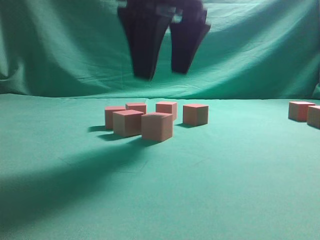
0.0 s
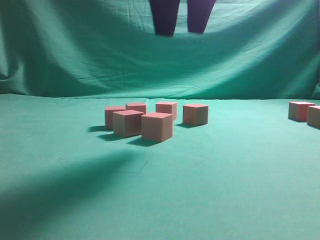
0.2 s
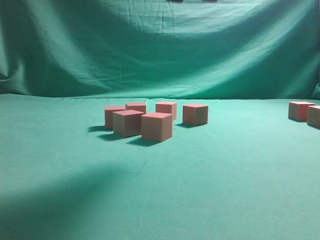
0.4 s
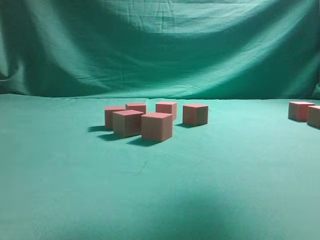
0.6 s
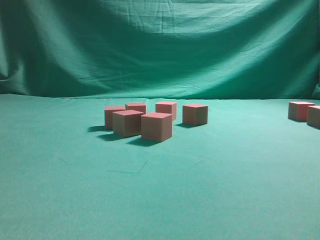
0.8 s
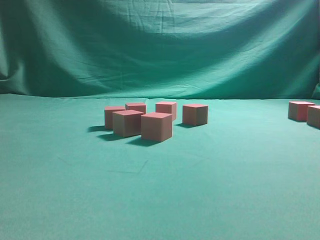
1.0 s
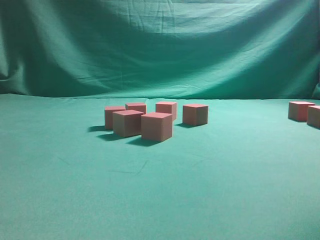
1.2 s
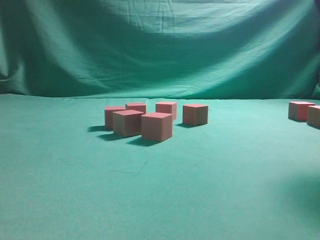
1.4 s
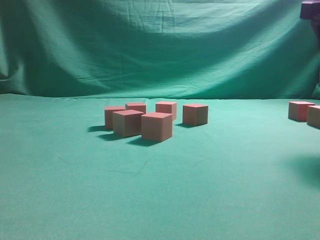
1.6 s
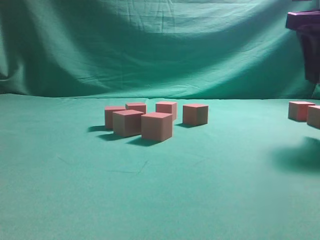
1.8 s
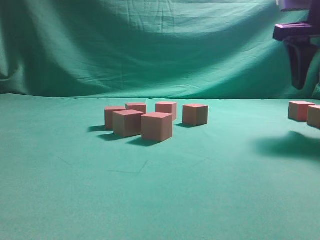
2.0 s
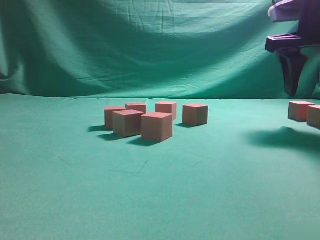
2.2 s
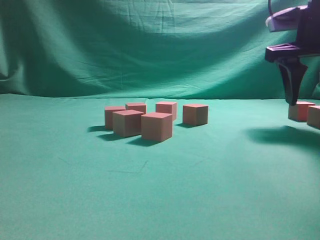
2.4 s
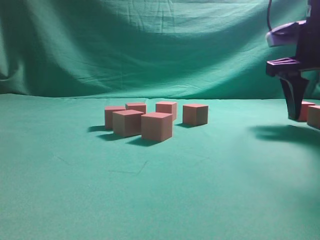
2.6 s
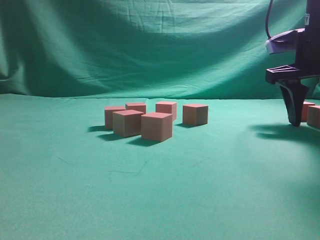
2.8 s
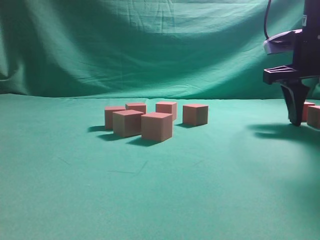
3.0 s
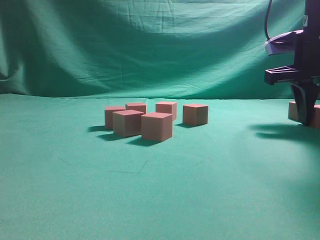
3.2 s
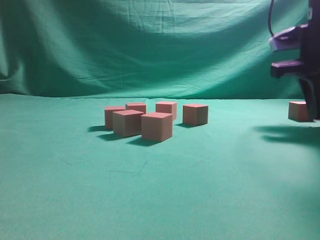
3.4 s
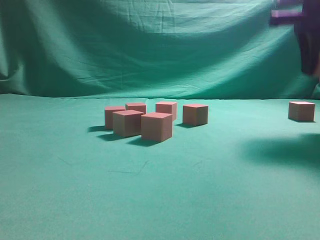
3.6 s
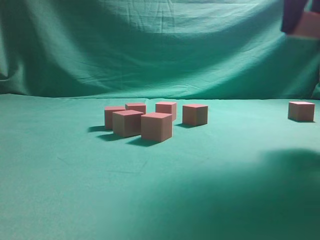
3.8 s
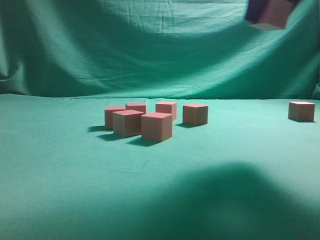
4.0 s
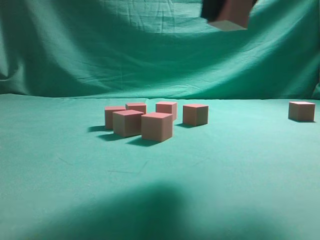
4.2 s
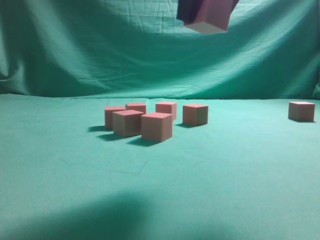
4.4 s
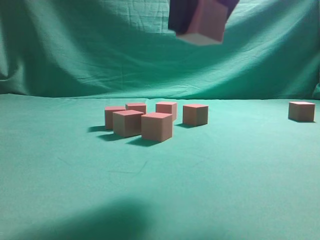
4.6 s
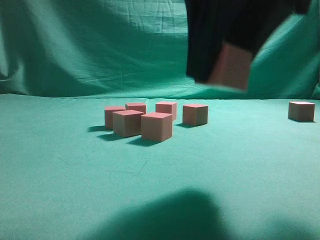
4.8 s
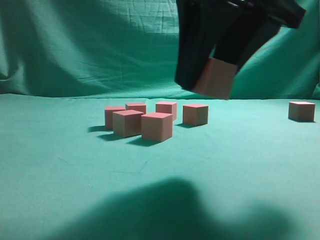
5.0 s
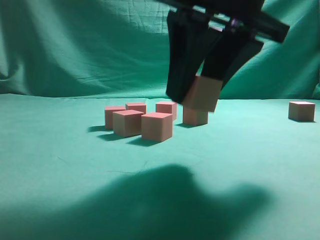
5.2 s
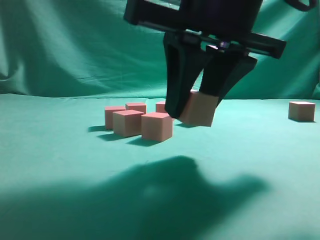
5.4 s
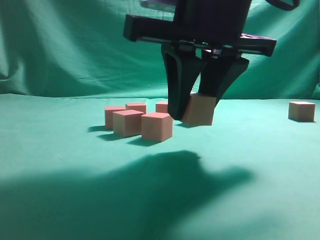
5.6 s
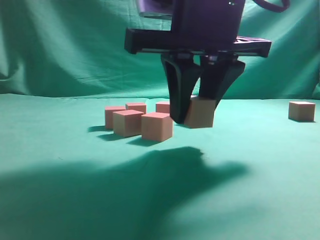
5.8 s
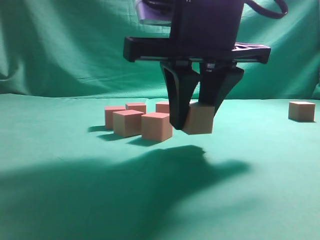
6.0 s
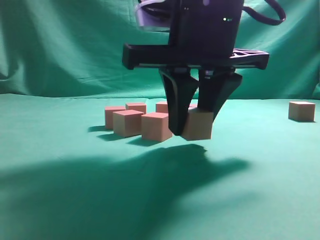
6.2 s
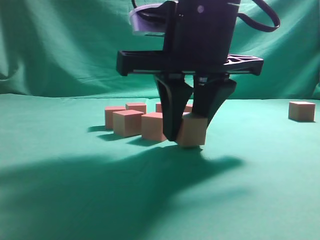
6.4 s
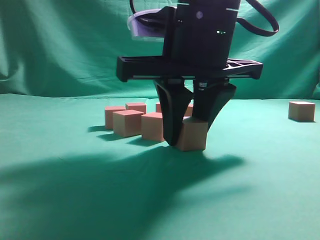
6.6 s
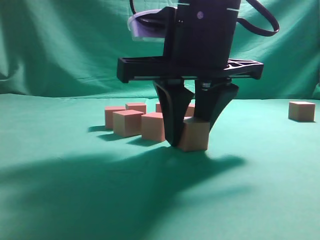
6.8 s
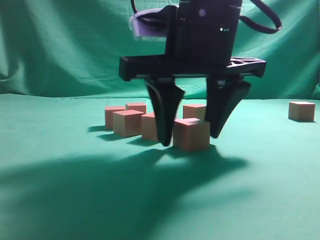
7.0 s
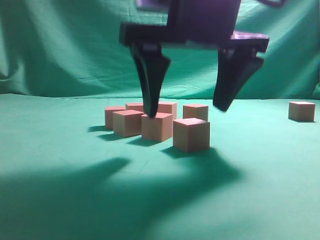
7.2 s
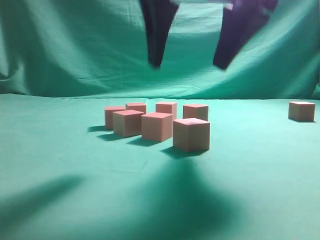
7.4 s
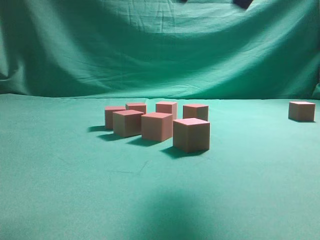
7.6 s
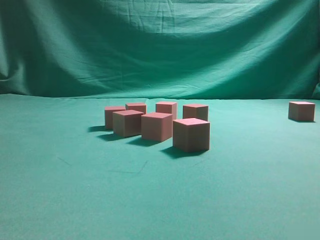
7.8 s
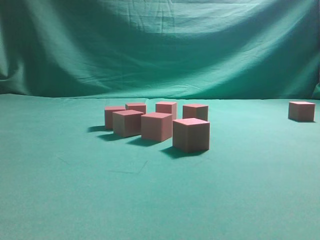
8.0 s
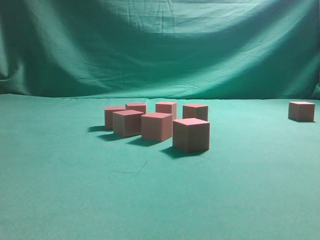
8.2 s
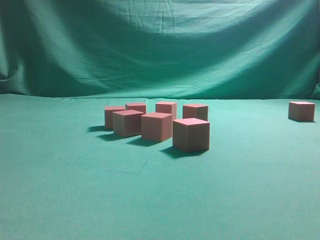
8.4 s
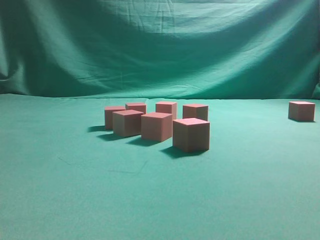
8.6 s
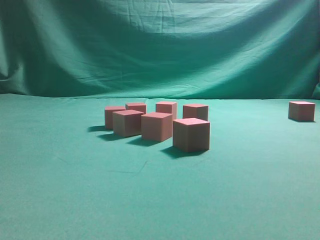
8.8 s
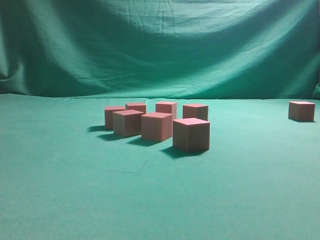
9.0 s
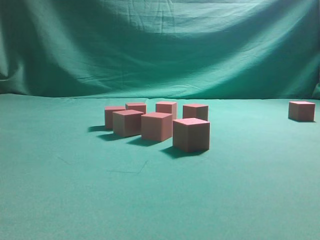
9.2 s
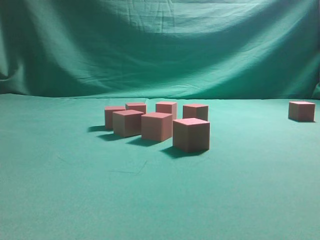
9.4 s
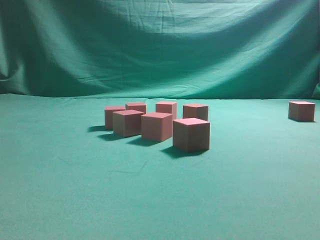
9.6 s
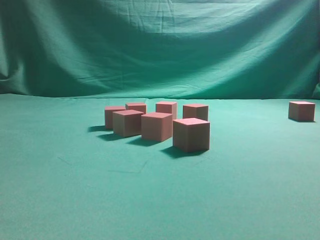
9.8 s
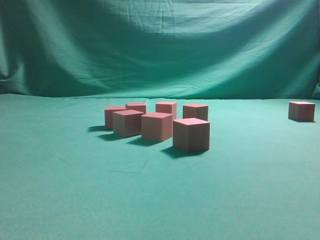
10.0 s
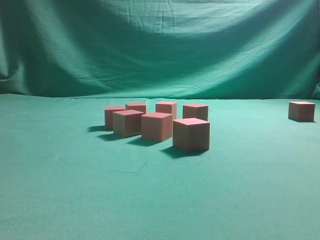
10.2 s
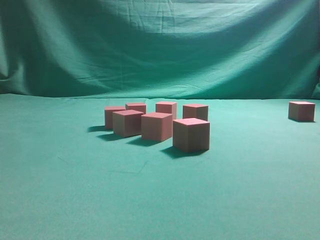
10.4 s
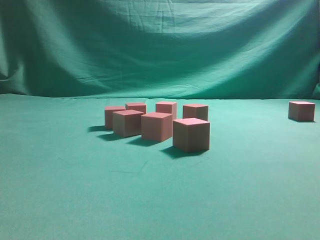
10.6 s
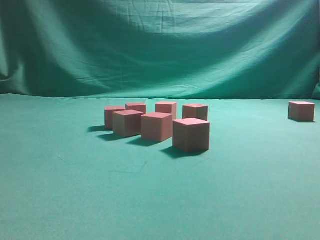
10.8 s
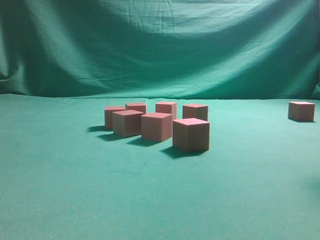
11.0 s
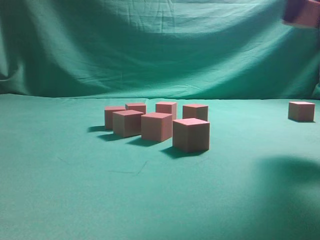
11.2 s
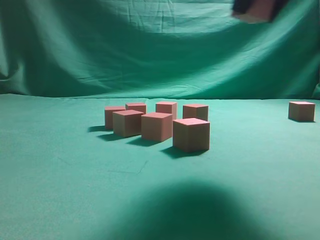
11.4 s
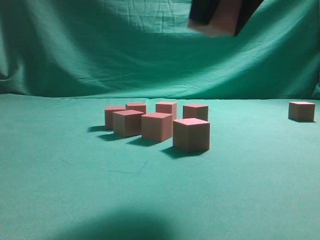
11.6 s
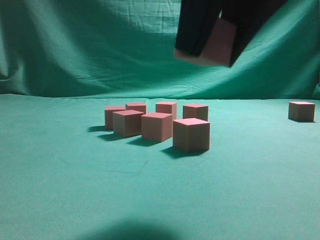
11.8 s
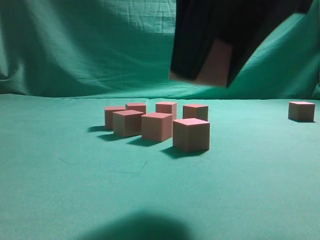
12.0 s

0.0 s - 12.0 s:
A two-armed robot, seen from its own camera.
Task of the whole recording: pick up the multiple cubes in two columns one by one and place them in another position on the table.
Step, 0.4 s - 3.4 s: Pick up the block on the table.
Step, 3.6 s - 7.2 s: Place the block at the correct position to assemble the letter S.
Step, 7.6 s - 10.6 s: Pick up the block on the table.
0.0 s - 1.6 s: The right gripper moves to the right, roughly 20 cm.
1.6 s - 3.0 s: The right gripper shifts roughly 10 cm downward and forward.
3.0 s - 4.4 s: The right gripper moves to the left, backward and upward, some 25 cm, and closes its fingers.
4.4 s - 6.0 s: The right gripper moves downward, approximately 10 cm.
6.0 s - 7.6 s: The right gripper goes about 10 cm upward, and opens its fingers.
7.6 s - 9.0 s: The right gripper moves to the right, forward and downward, roughly 25 cm.
10.4 s - 12.0 s: The right gripper is displaced to the left and backward by about 30 cm.

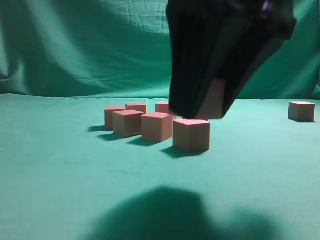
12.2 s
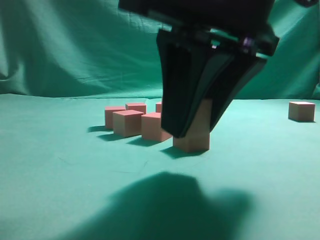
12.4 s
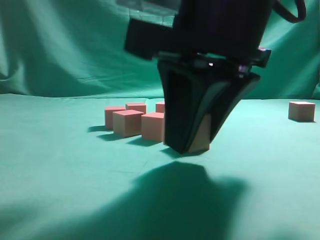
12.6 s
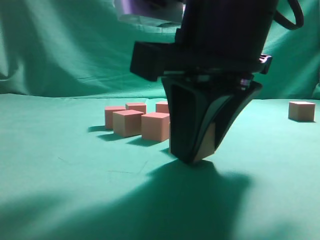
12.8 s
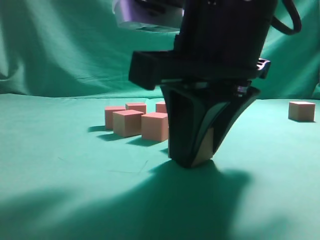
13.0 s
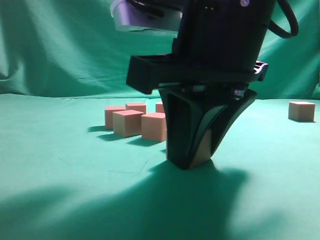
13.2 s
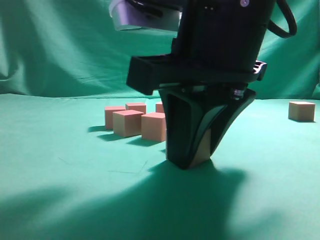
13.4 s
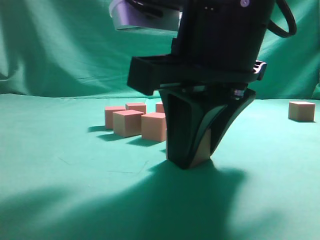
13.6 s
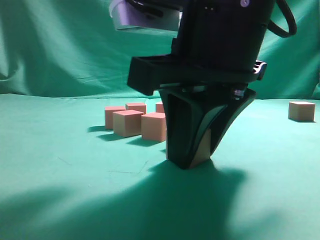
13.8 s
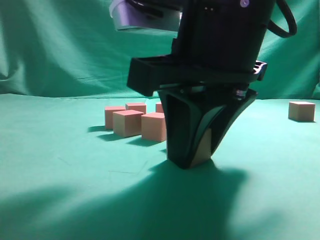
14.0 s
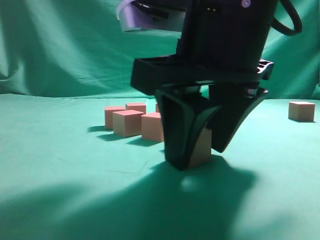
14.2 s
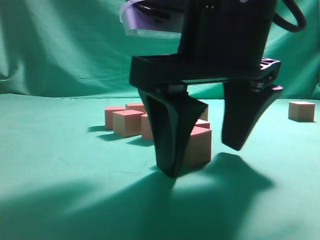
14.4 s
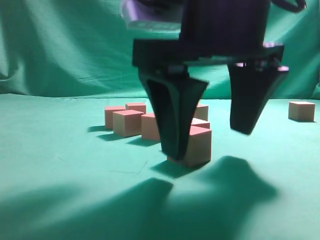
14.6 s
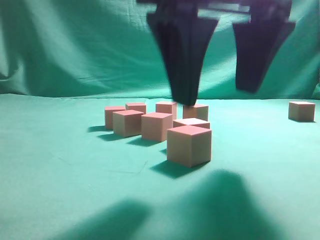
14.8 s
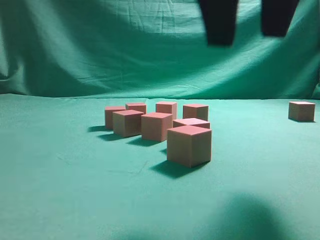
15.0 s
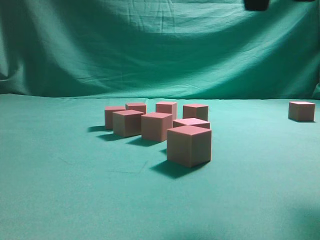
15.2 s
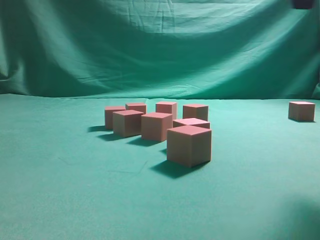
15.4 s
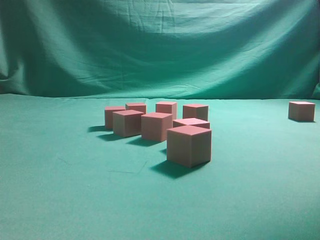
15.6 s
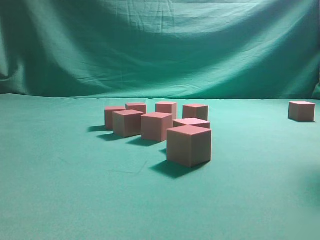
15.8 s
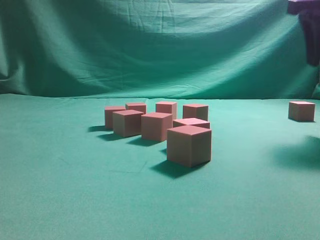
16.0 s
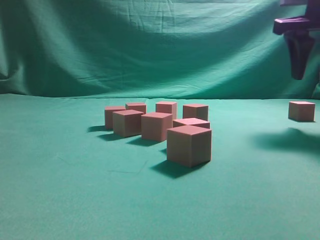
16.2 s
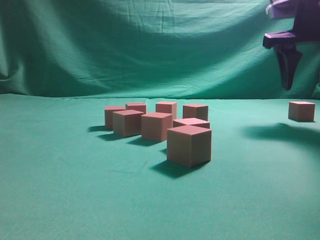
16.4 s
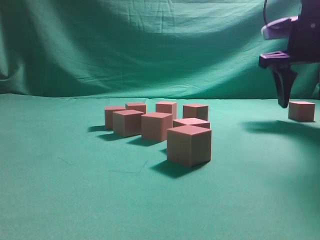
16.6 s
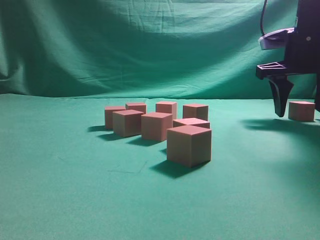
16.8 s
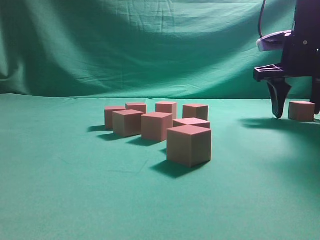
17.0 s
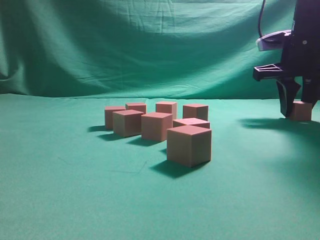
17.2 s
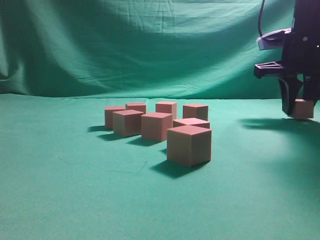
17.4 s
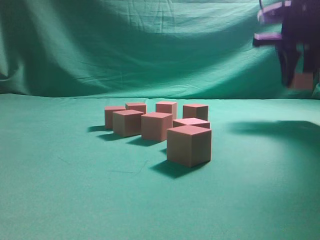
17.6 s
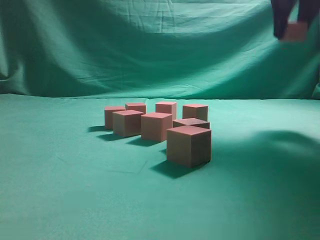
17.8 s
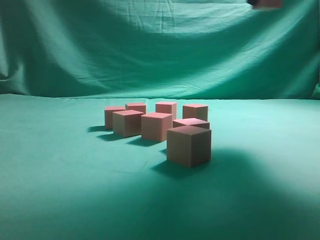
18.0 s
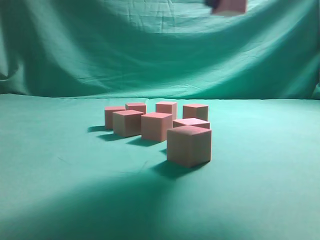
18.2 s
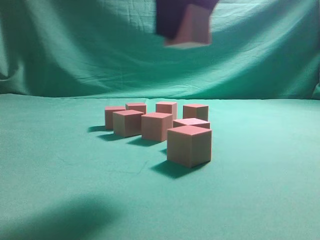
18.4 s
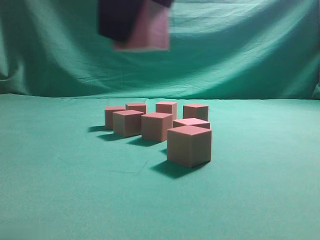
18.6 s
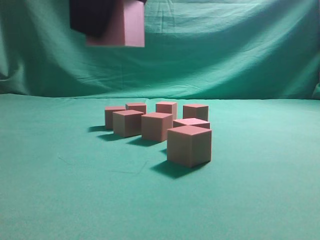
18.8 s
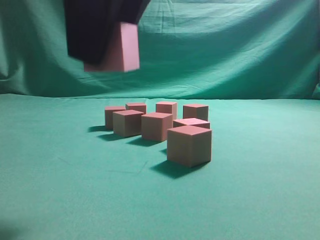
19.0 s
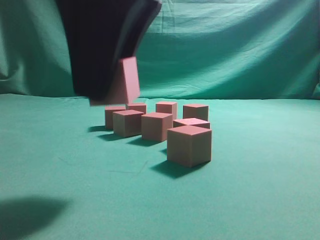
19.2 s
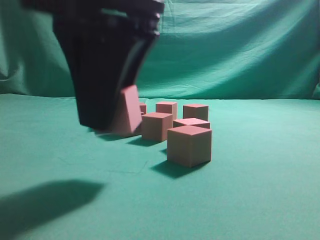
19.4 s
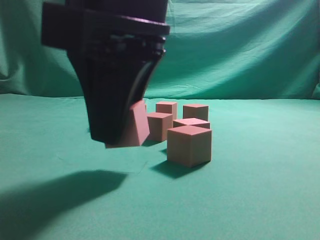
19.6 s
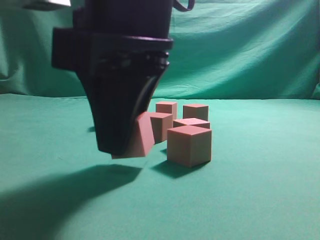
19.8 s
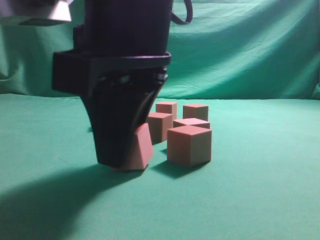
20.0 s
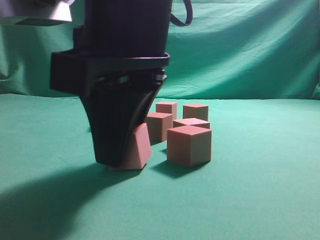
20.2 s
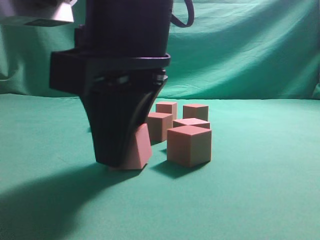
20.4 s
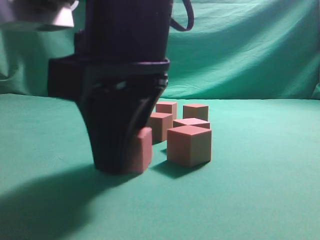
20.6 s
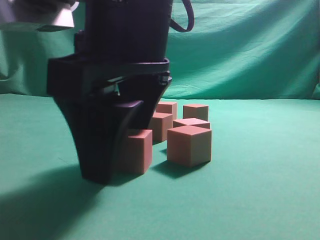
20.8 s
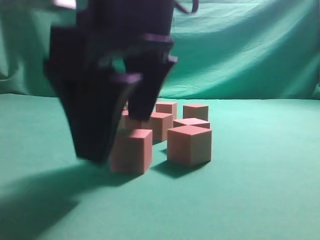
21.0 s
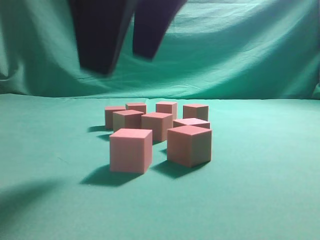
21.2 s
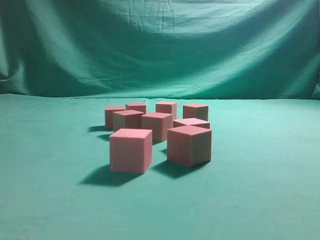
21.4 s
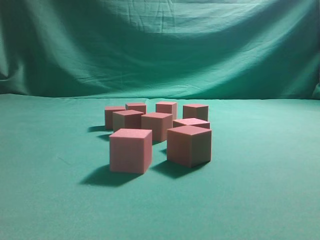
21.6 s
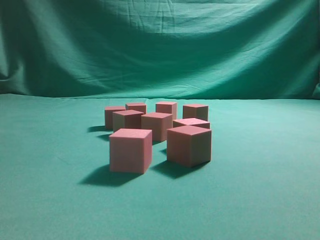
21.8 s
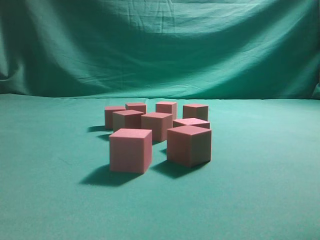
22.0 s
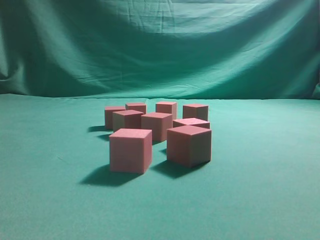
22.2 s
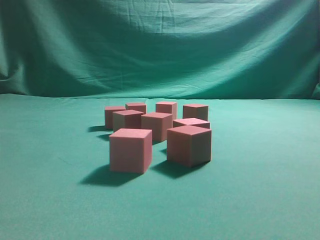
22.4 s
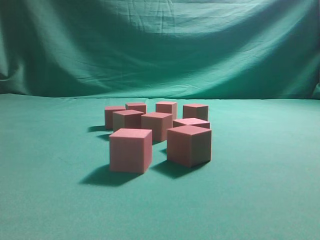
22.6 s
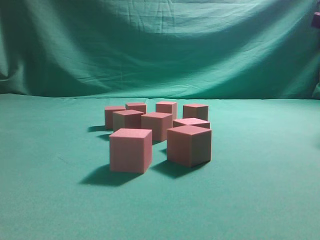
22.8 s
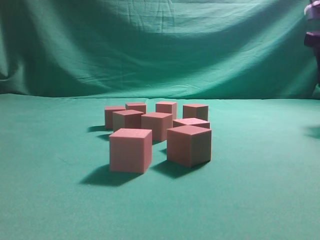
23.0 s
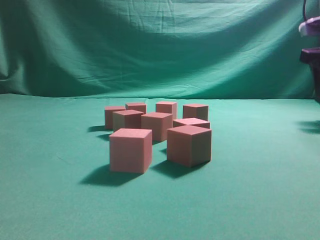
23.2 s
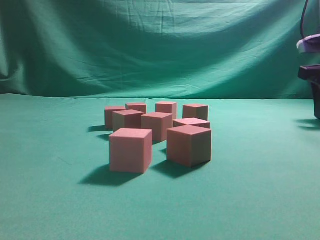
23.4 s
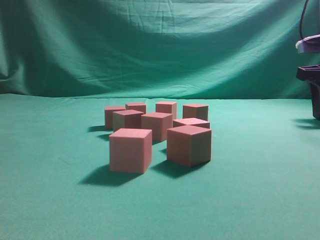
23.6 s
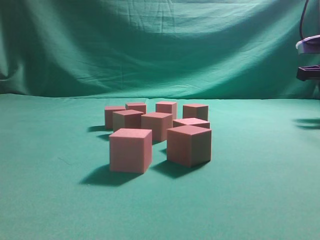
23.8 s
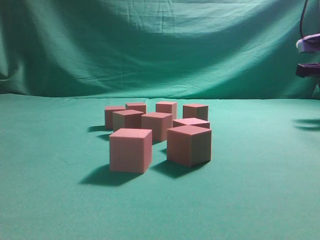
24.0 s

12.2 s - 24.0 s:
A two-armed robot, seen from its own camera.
Task of the whole recording: pick up the multiple cubes in two columns one by one and place them in another position on the table.
Step, 12.2 s - 14.8 s: Place the block at the correct position to assemble the letter S.
Step, 15.0 s - 17.6 s: Pick up the block on the table.
Step, 17.8 s - 21.0 s: Place the block at the correct position to assemble the letter S.
12.2 s - 13.6 s: The right gripper shifts roughly 5 cm downward.
13.6 s - 15.2 s: The right gripper shifts some 15 cm upward, and opens up.
15.2 s - 16.6 s: The right gripper moves forward, to the right and downward, approximately 25 cm.
16.6 s - 18.2 s: The right gripper heads backward, to the left and upward, covering some 20 cm, and closes its fingers.
18.2 s - 19.6 s: The right gripper shifts some 20 cm downward, to the left and backward.
19.6 s - 21.0 s: The right gripper opens its fingers.
21.0 s - 22.6 s: The right gripper shifts roughly 35 cm to the right and forward.
22.6 s - 24.0 s: The right gripper goes approximately 15 cm downward and forward, and closes its fingers.
